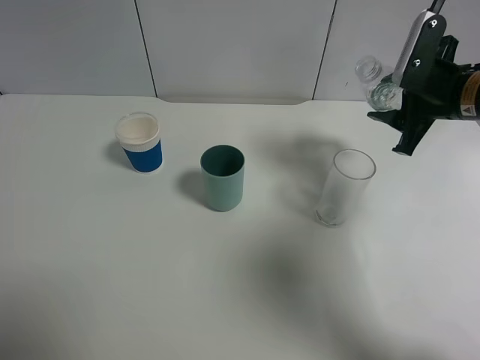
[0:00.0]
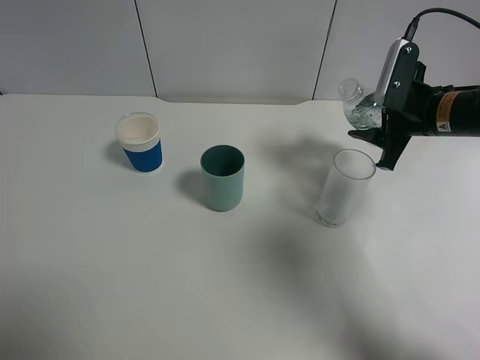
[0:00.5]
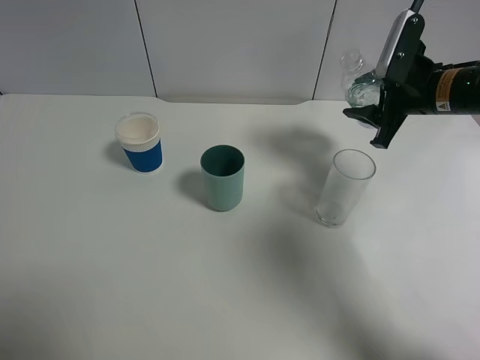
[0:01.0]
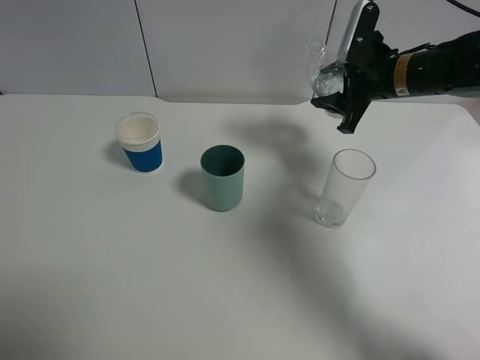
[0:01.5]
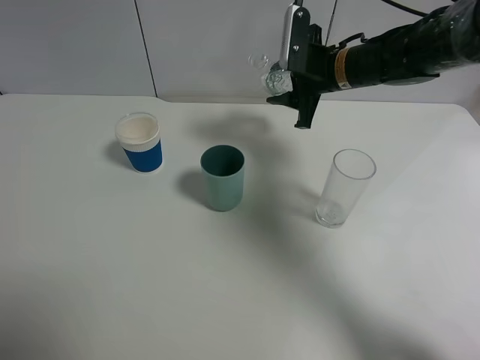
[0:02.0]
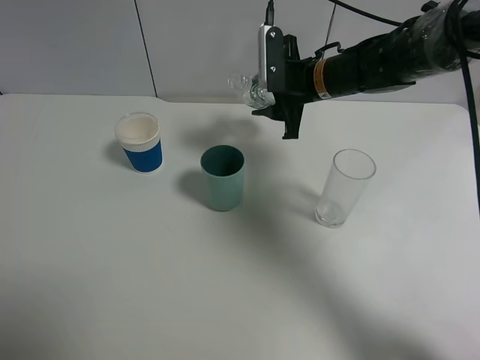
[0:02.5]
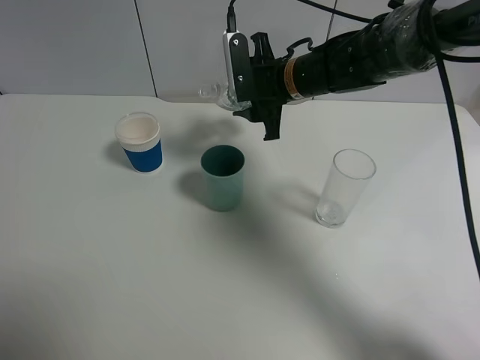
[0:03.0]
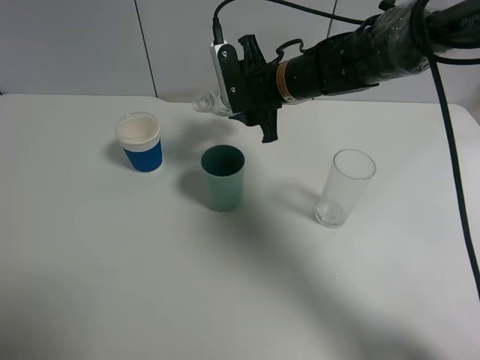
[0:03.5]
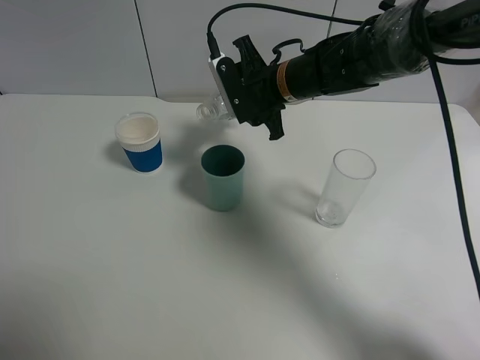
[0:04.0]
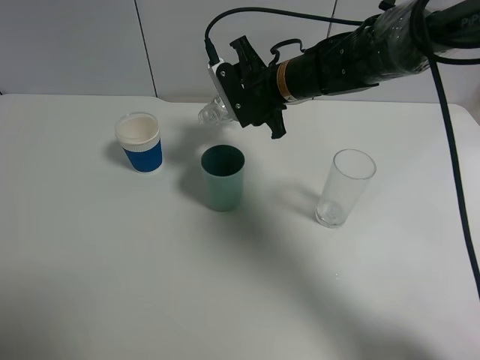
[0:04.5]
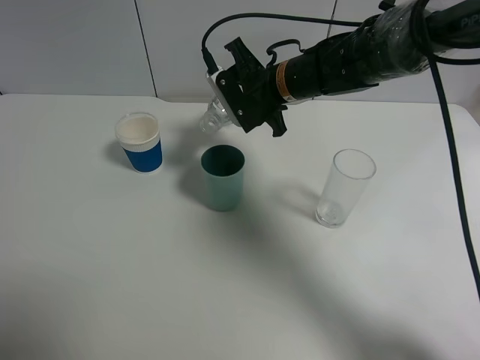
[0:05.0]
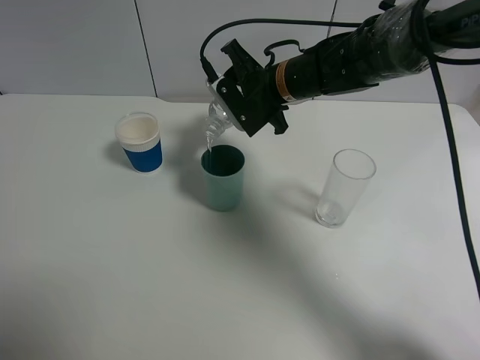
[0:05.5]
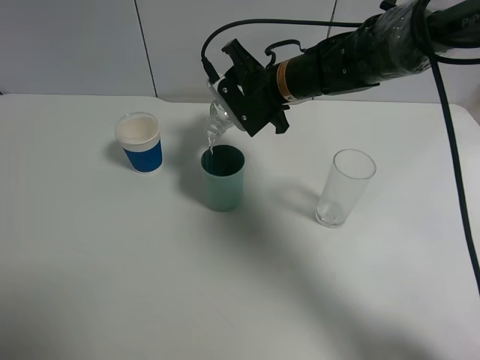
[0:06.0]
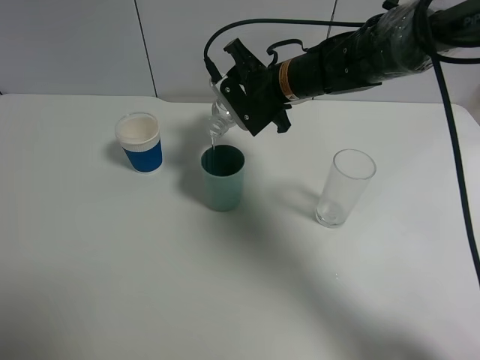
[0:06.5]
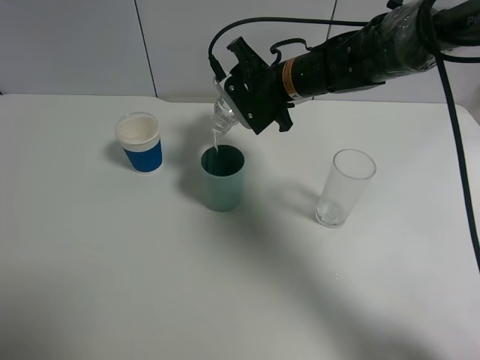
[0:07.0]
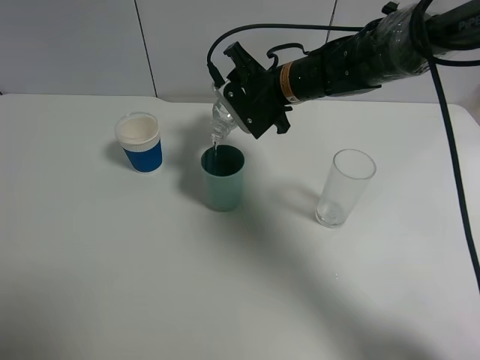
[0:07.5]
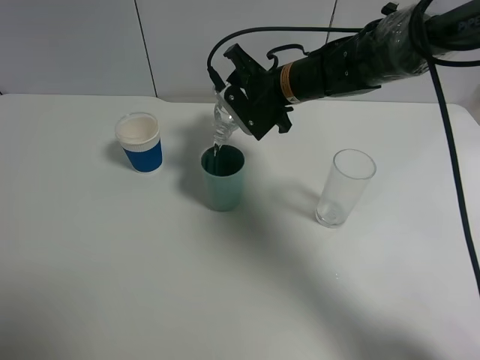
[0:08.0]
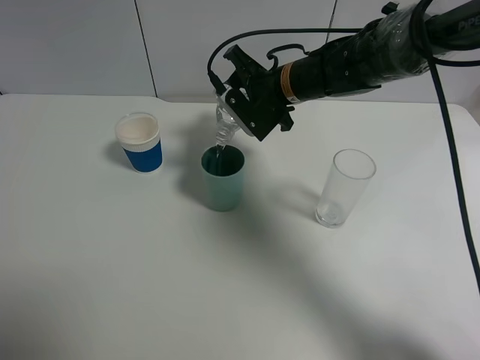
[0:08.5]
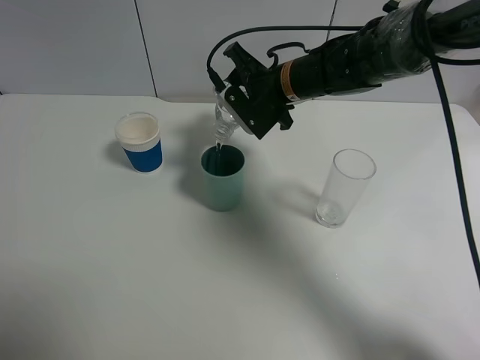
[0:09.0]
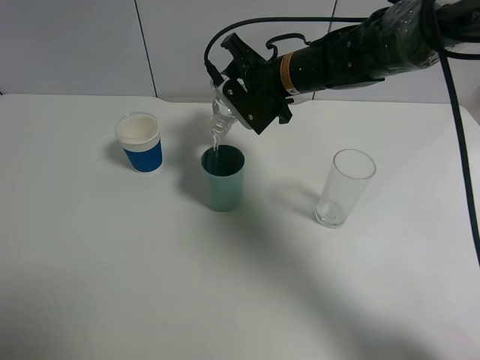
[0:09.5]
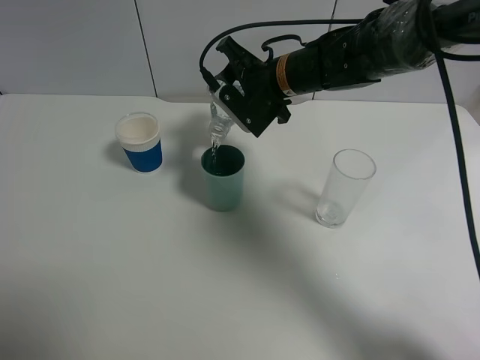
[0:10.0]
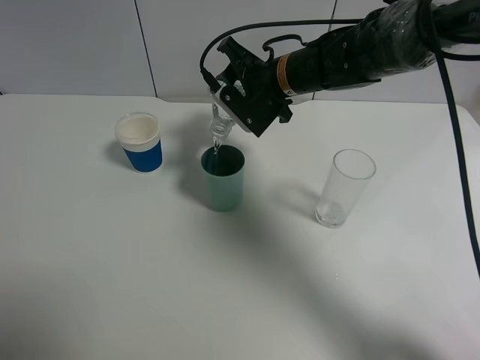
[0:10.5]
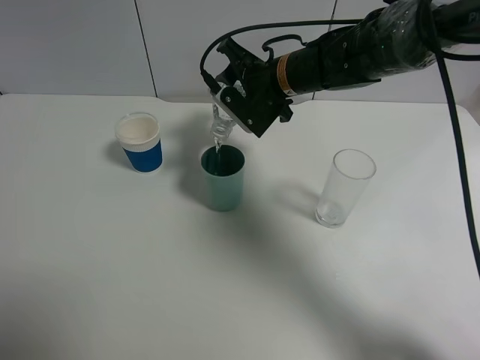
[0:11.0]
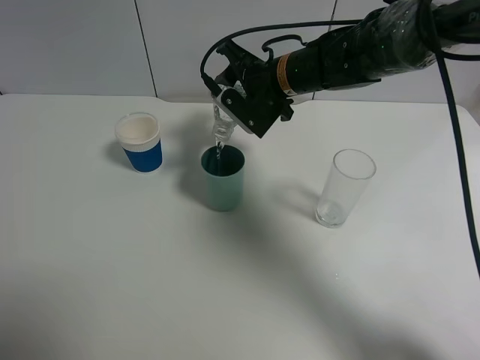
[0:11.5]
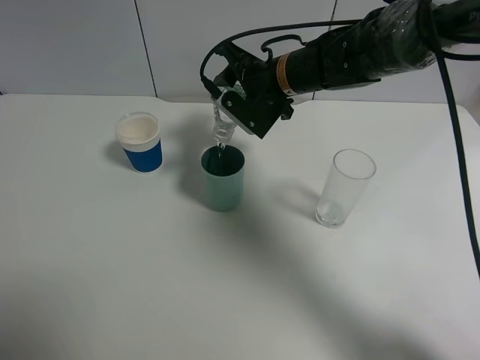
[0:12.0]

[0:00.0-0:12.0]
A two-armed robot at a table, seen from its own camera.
Task of the whole recording: use a gripper to hold the bottle of the drink and pour it into a random cup.
0.0 to 2.0 s: The right gripper heads to the left and forward, covering roughly 15 cm.
2.0 to 4.0 s: The right gripper shifts some 10 cm to the left.
4.0 to 6.0 s: The grippers move only a little.
6.0 to 8.0 s: Both grippers stay put.
8.0 to 12.0 s: The grippers make only small movements.

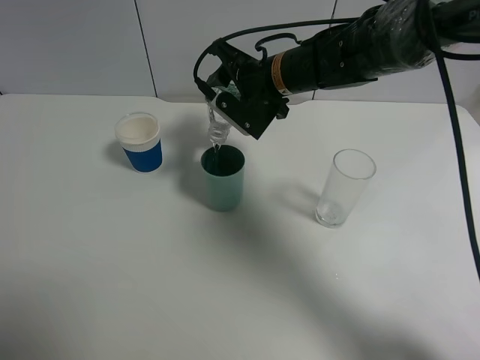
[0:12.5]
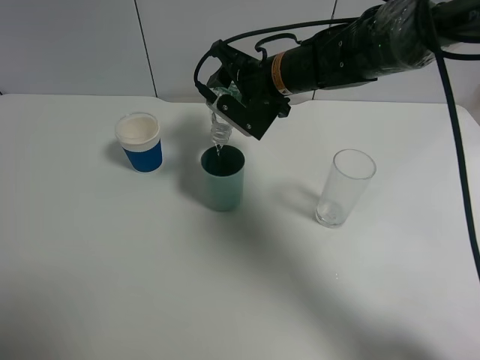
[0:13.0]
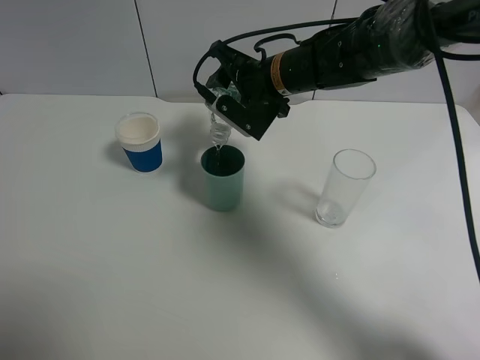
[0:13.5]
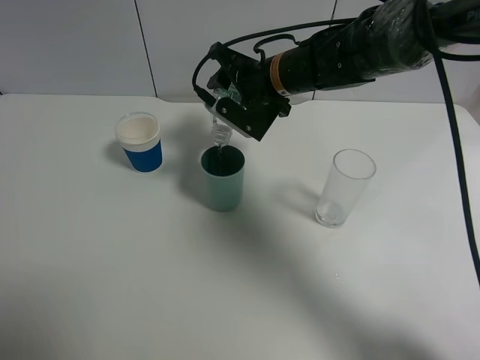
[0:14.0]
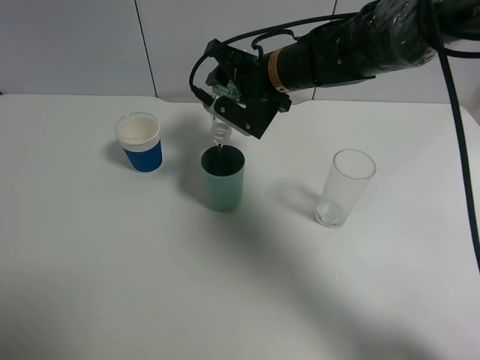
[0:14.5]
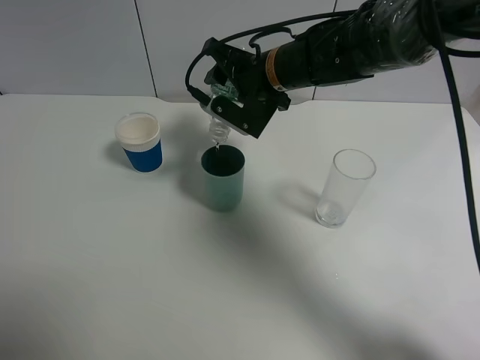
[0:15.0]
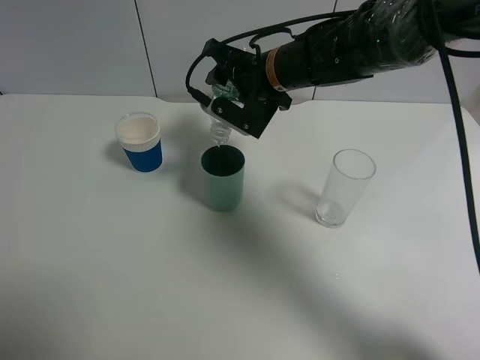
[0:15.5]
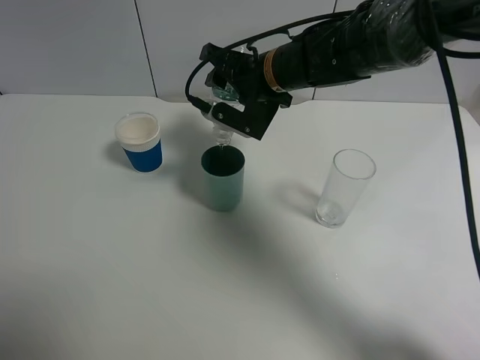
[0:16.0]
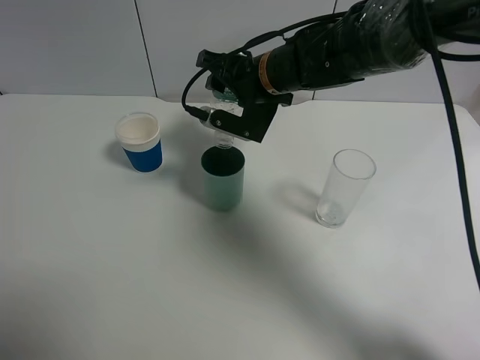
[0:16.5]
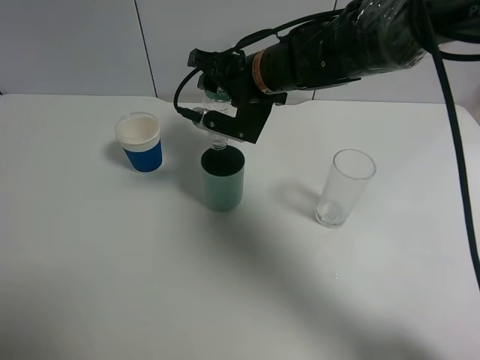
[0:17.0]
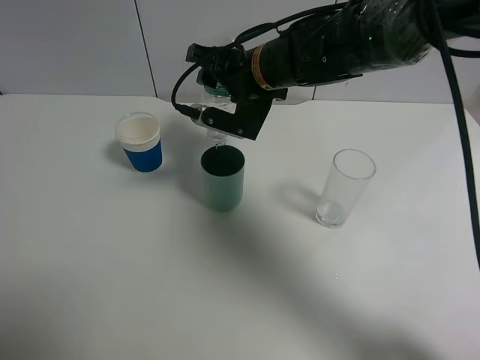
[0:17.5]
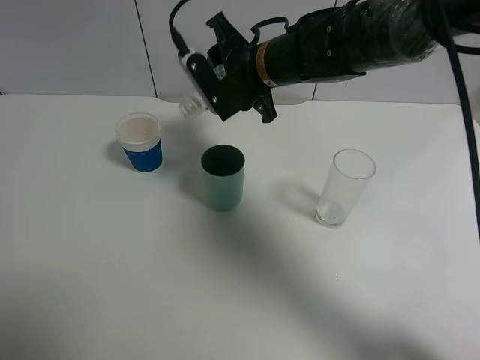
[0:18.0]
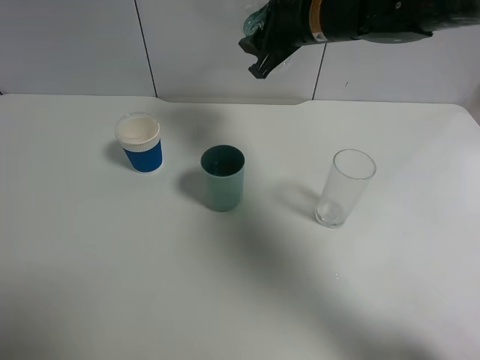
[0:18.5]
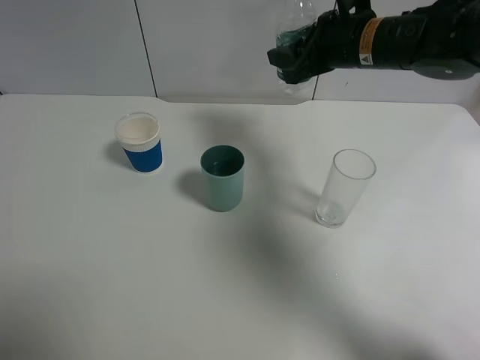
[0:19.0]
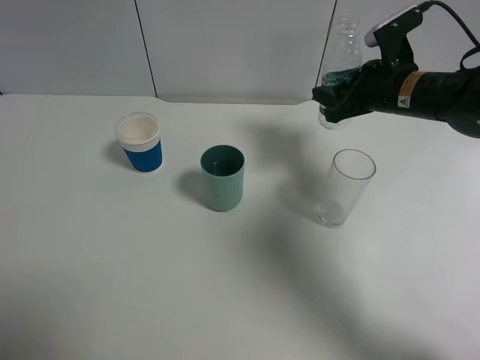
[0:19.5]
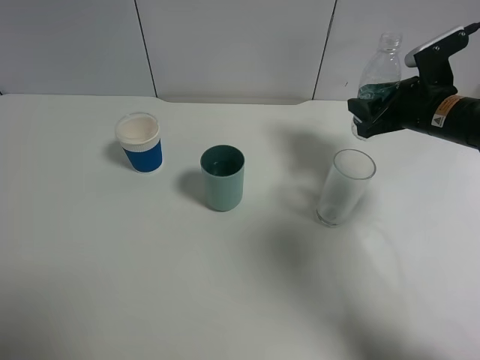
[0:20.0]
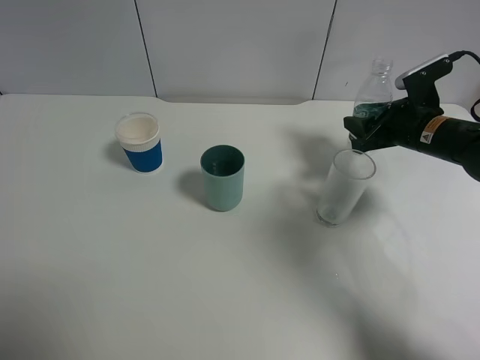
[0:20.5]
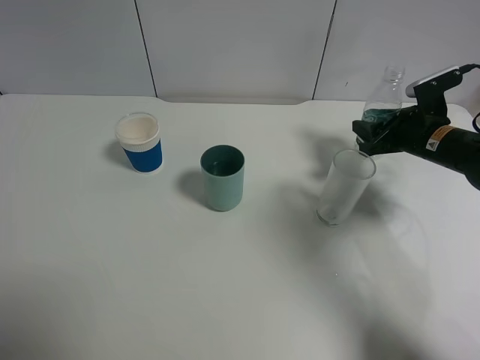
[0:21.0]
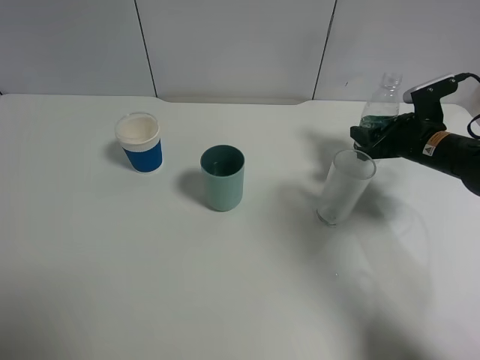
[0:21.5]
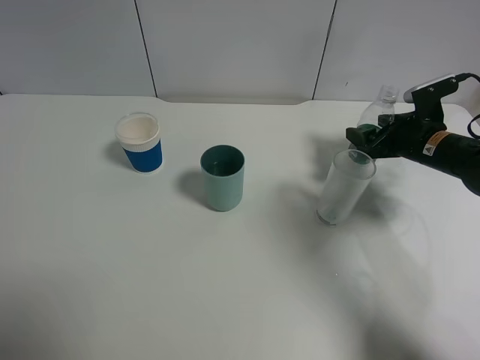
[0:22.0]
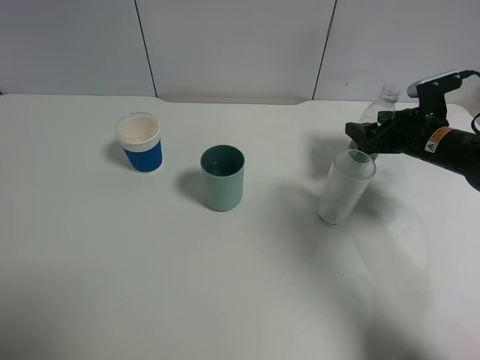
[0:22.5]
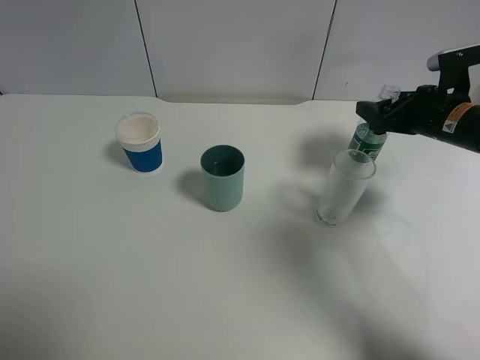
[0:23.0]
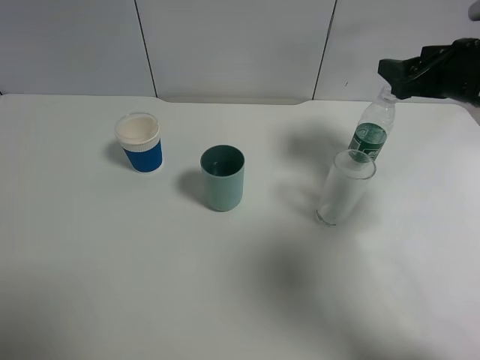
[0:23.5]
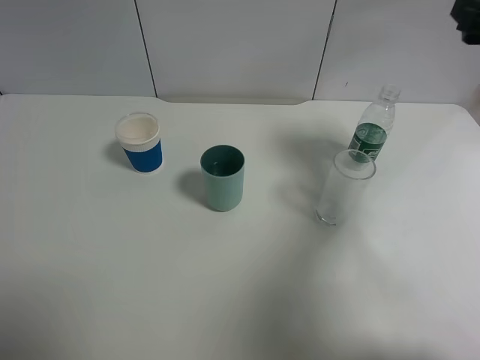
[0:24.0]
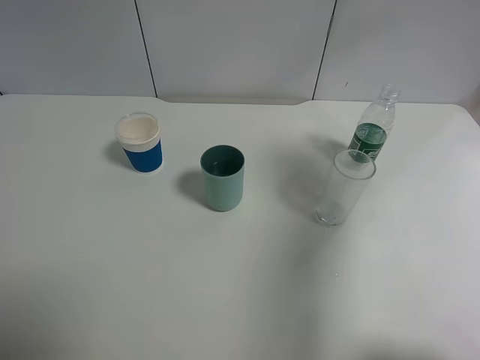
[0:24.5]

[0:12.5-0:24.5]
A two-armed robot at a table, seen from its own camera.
Task of the whole recording: use a gripper to hold the bottle of the drink and pour it into a random cup.
Step, 12.5 to 17.5 s: Pour the mineral water into the cyan cup with the right gripper.
Step, 18.0 to 23.0 s: Place the mineral water bottle on the table with the right gripper.
12.5 to 16.5 s: There are only small adjustments of the grippers.
16.5 to 18.5 s: The right gripper is displaced upward and to the right by roughly 10 cm.
18.5 to 20.5 s: The right gripper travels to the right and downward by some 25 cm.
20.5 to 22.5 s: The right gripper opens.
22.5 to 24.5 s: The right gripper heads upward and backward, covering about 30 cm.

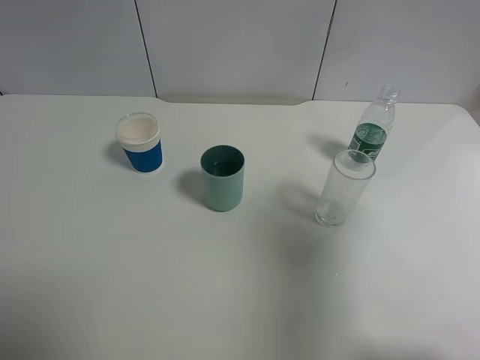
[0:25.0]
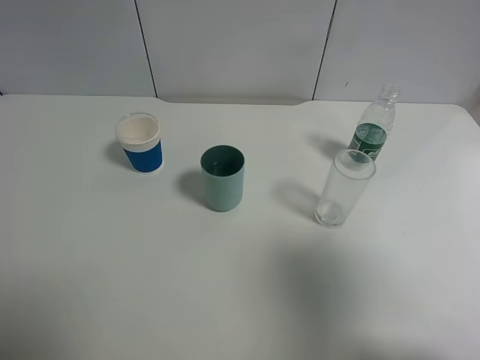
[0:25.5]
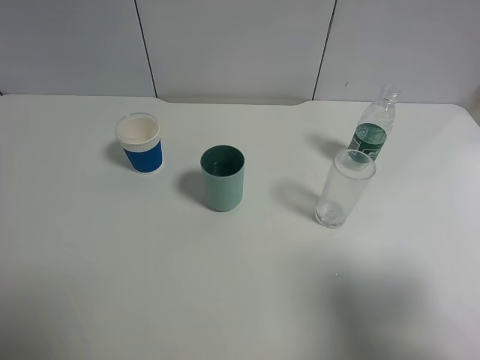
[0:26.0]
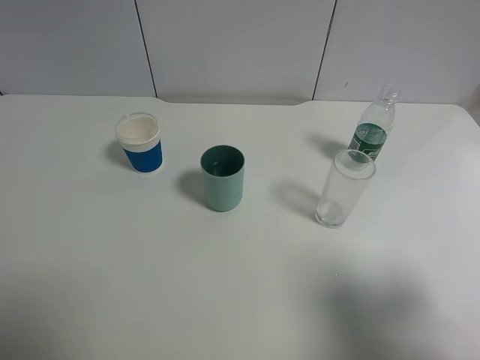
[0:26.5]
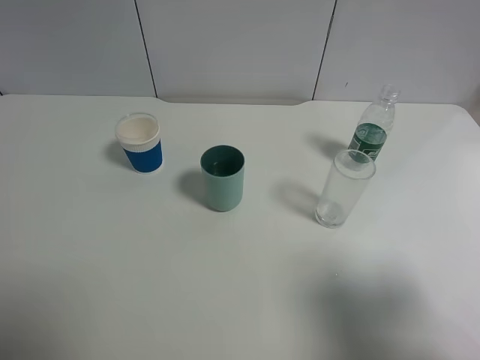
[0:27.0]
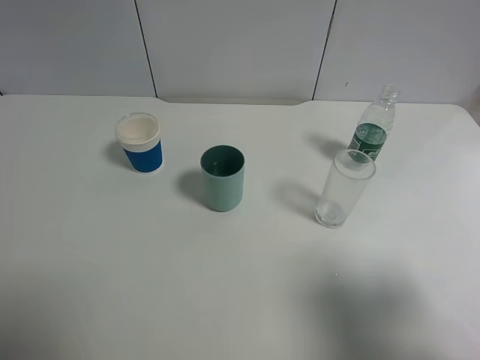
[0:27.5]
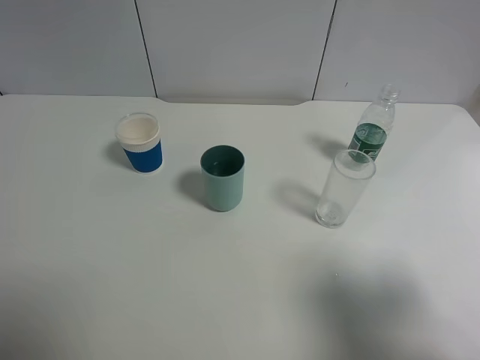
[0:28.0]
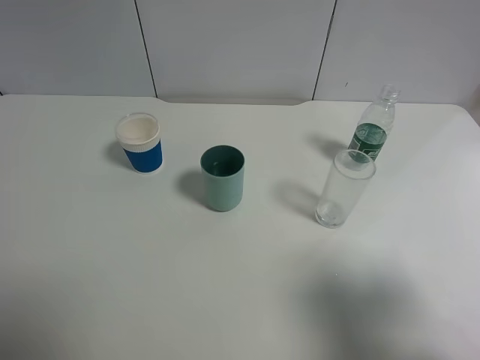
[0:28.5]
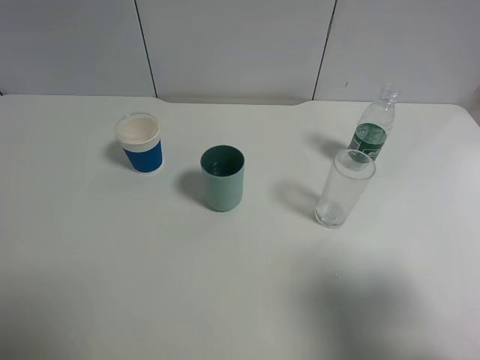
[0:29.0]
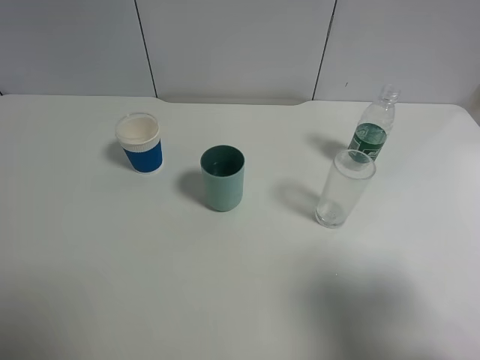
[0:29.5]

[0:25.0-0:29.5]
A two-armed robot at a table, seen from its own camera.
Task of the whole recording: use a gripper to hold the bottle of the drink and pour it into a random cup.
25.0 to 27.0 s: The right gripper travels downward and backward by approximately 10 cm.
27.0 to 29.5 s: Both grippers stay put.
